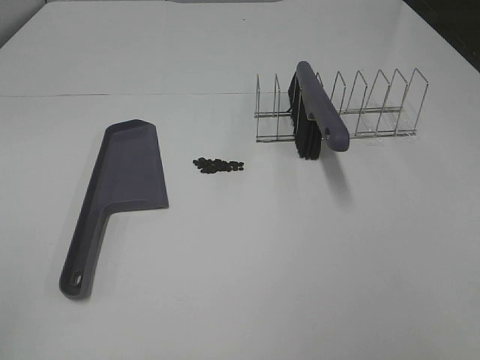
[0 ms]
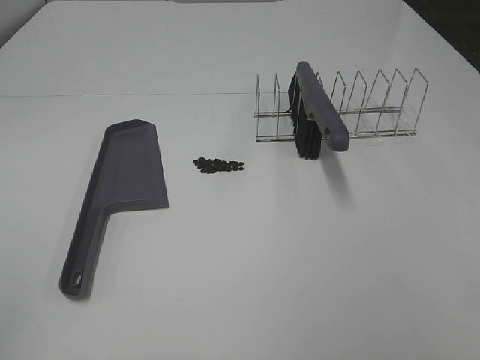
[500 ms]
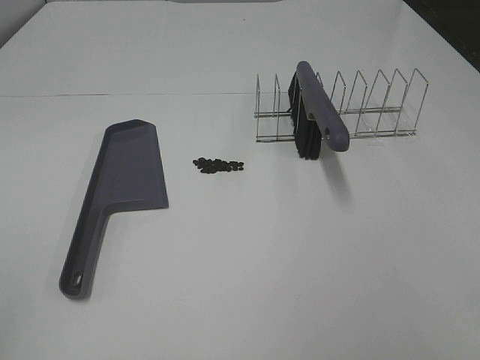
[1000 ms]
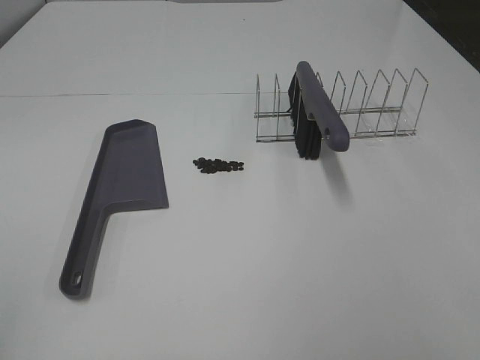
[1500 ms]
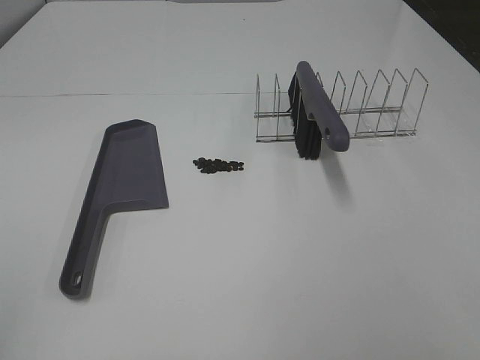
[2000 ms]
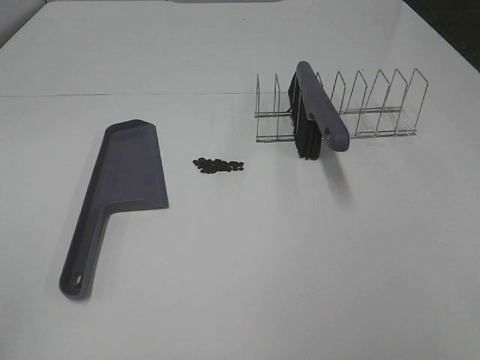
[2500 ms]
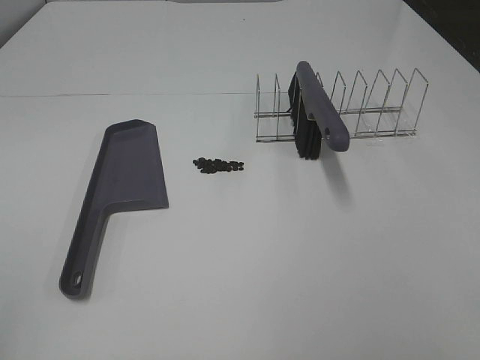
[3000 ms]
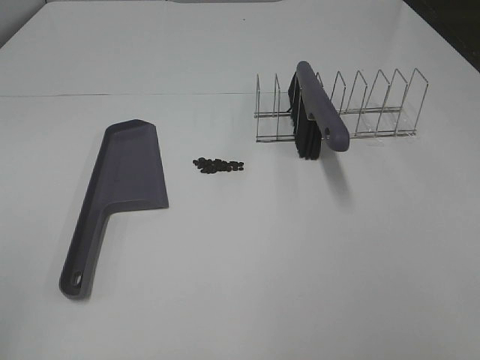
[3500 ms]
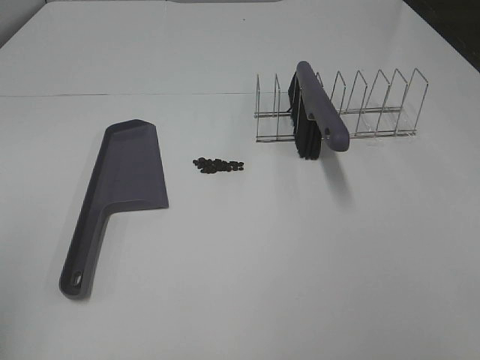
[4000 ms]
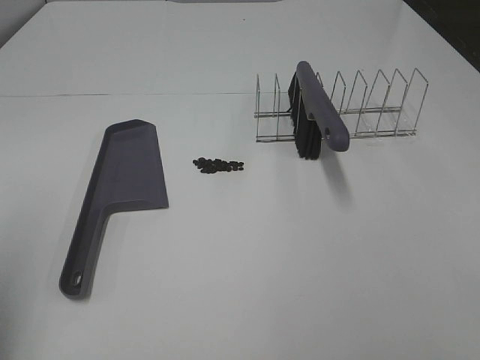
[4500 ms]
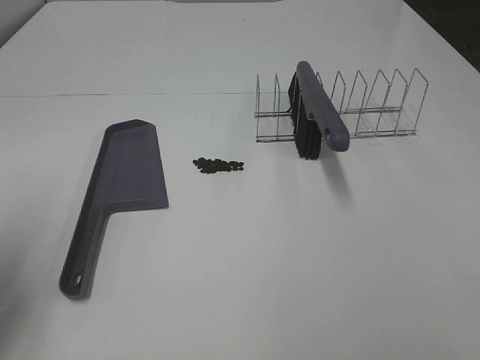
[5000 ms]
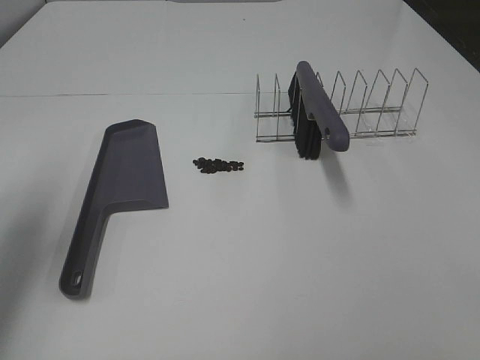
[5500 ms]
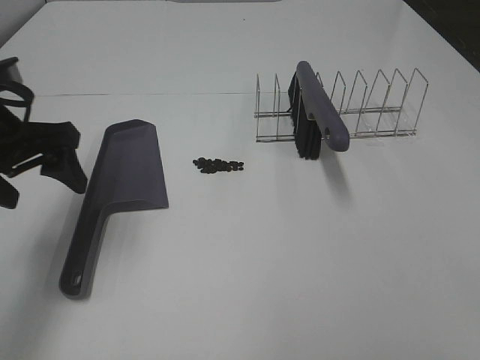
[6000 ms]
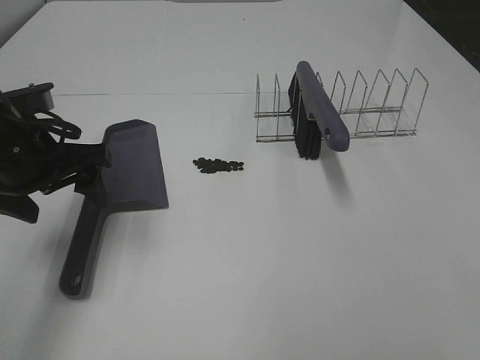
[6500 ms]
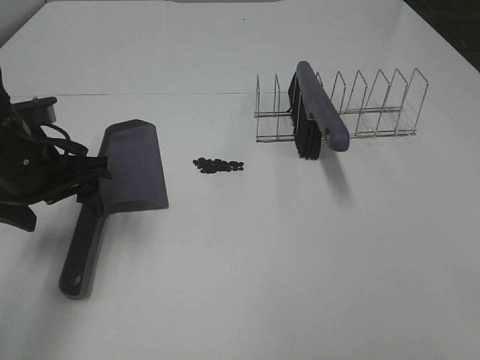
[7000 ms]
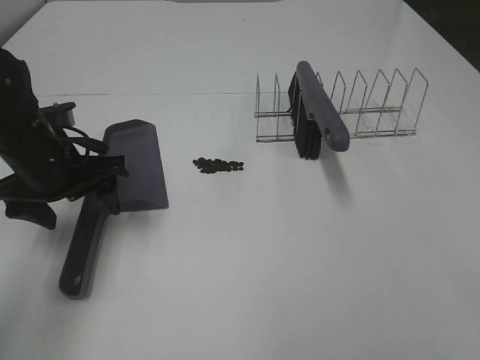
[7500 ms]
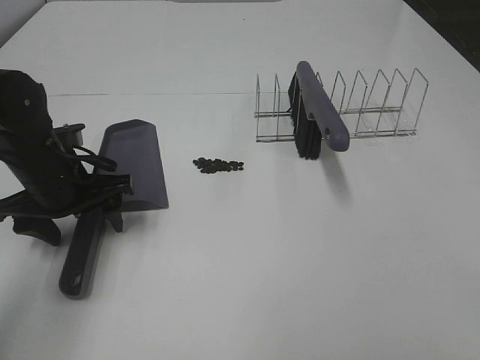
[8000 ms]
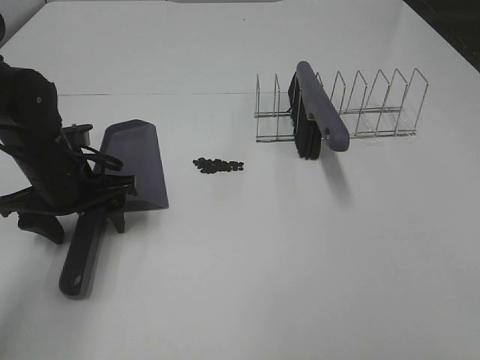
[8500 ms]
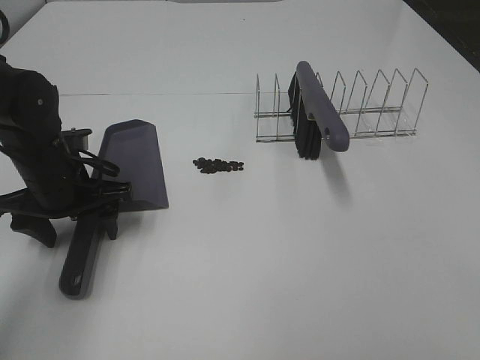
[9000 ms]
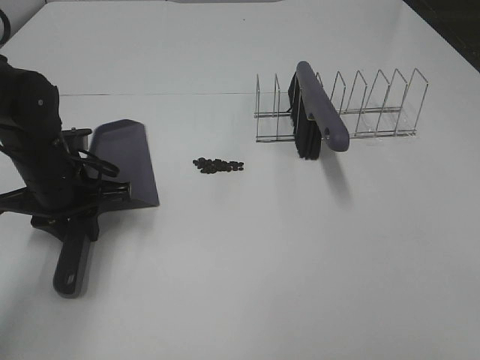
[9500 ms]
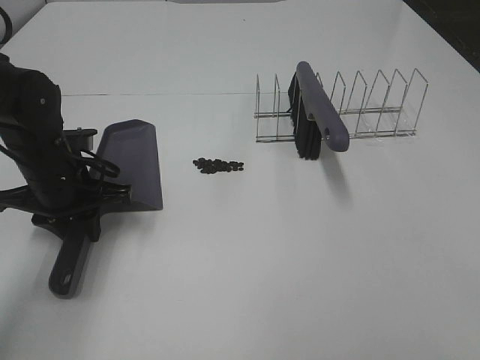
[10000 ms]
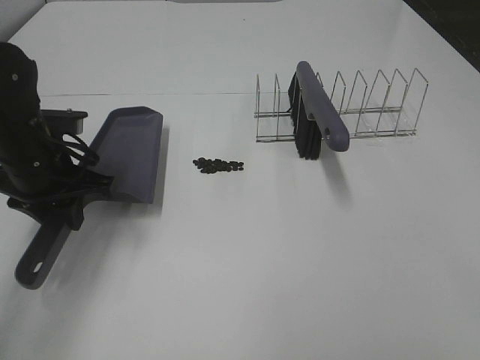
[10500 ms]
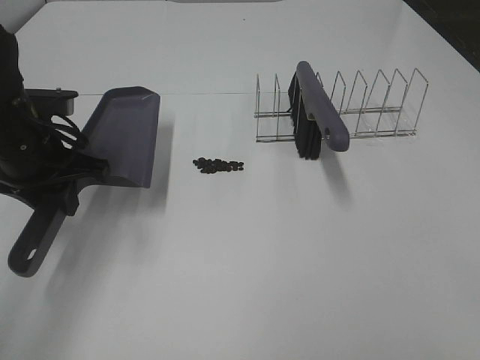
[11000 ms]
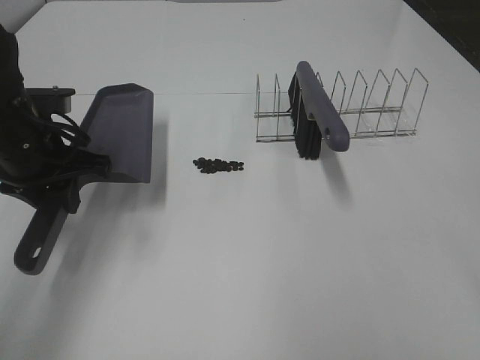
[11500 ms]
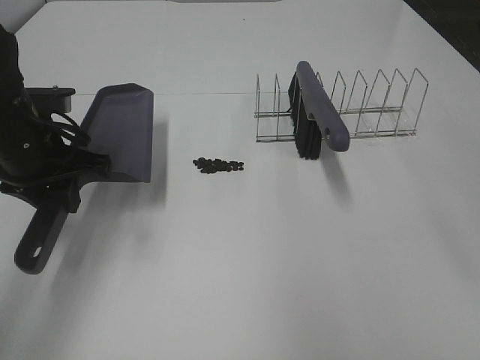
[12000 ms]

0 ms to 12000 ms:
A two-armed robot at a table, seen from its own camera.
Task of the whole recording: Sweep Coffee Bean.
Step, 0 ms to 9500 ms: Left hand: grab the dustpan.
0 ms to 2000 ms: Both grippers stay about where they are.
4000 ms to 6000 ms: The left gripper goes approximately 25 cm forward and to the right.
6000 ms to 8000 ms: The left gripper travels downward by roughly 10 cm.
8000 ms to 10000 ms: The left gripper closes its fingers.
10000 ms to 12000 ms: The left gripper moves upward, some 10 cm.

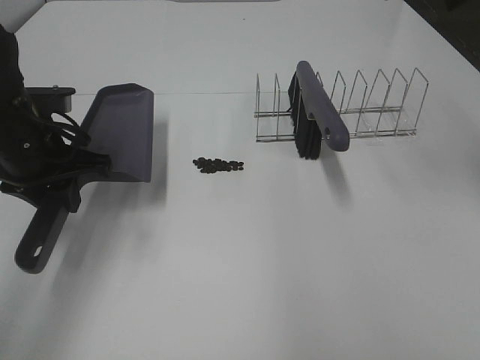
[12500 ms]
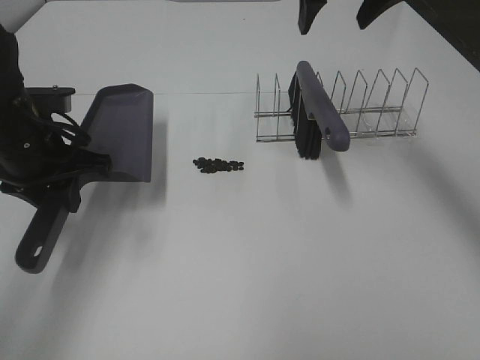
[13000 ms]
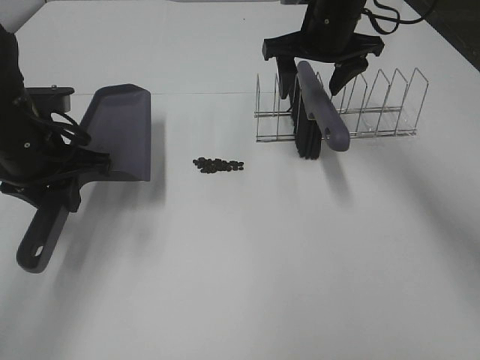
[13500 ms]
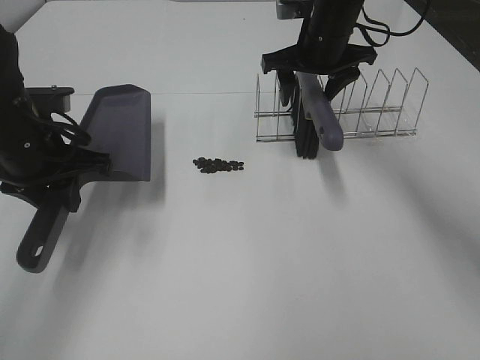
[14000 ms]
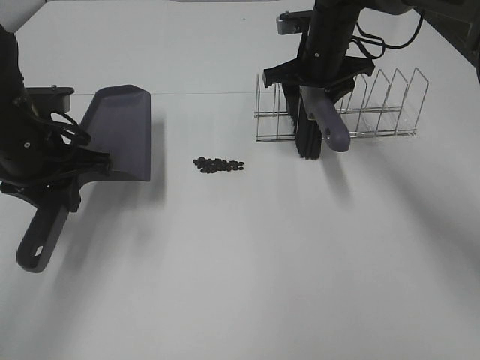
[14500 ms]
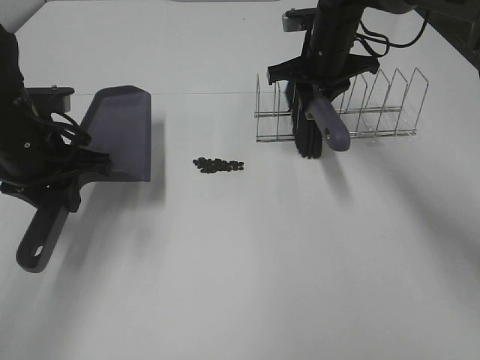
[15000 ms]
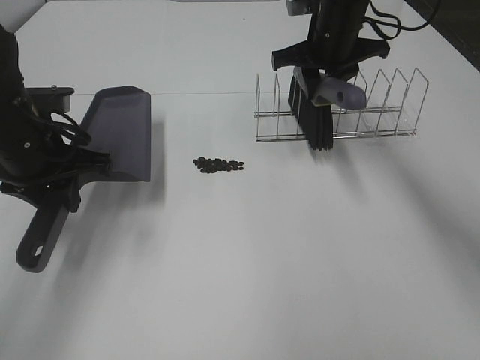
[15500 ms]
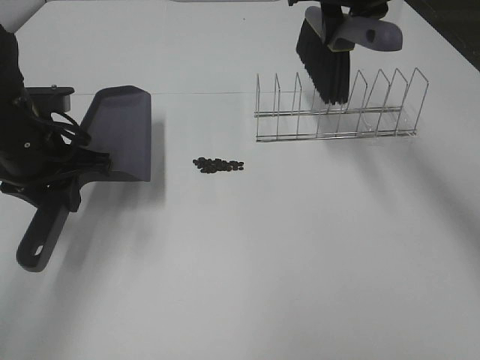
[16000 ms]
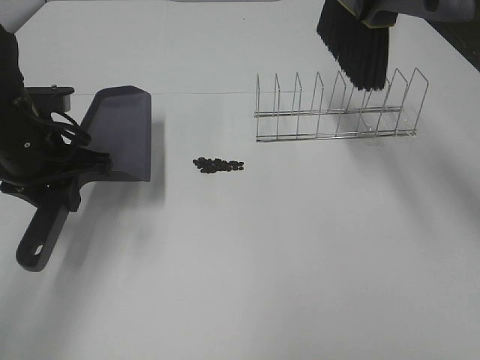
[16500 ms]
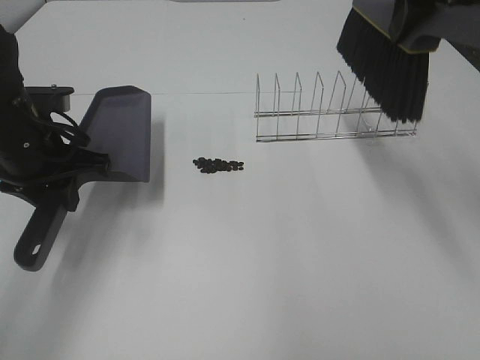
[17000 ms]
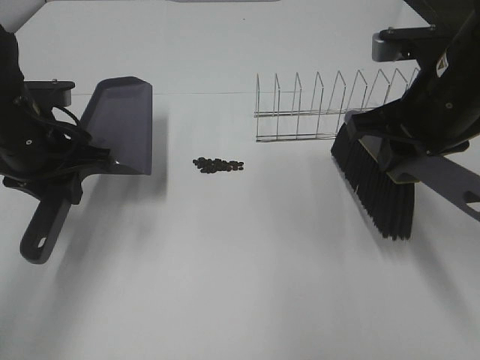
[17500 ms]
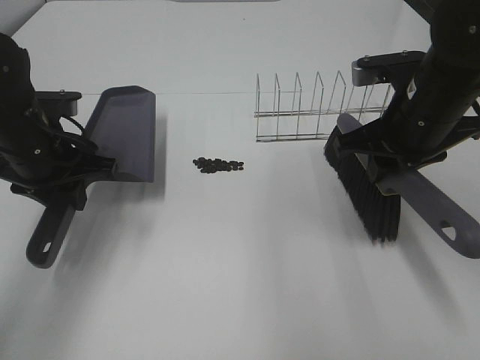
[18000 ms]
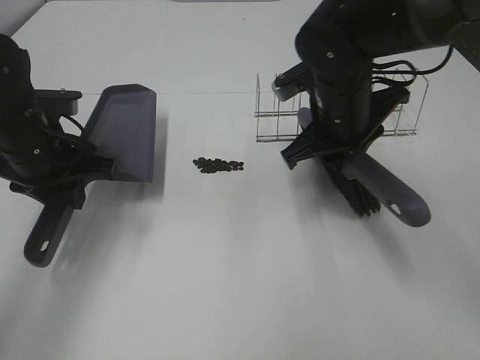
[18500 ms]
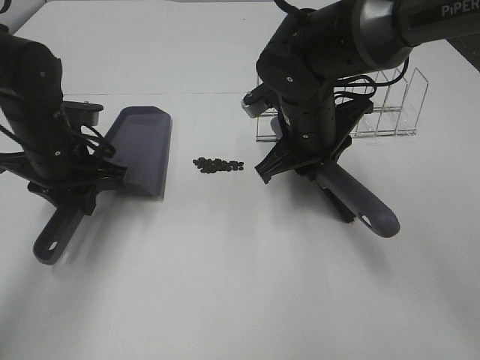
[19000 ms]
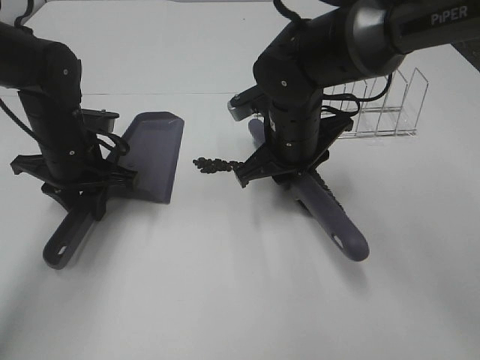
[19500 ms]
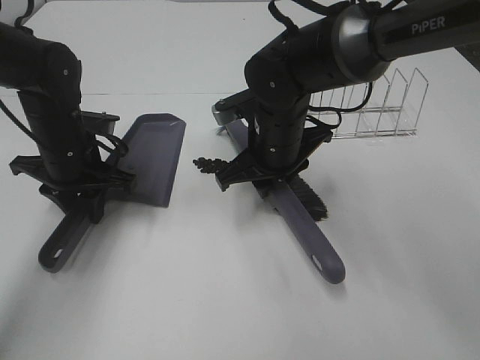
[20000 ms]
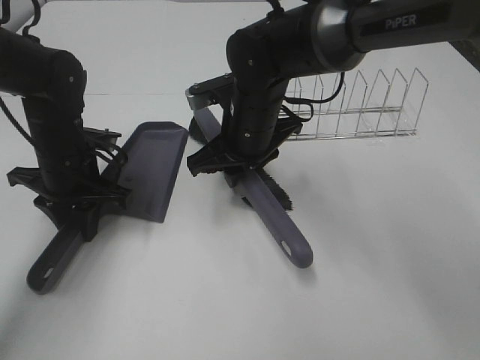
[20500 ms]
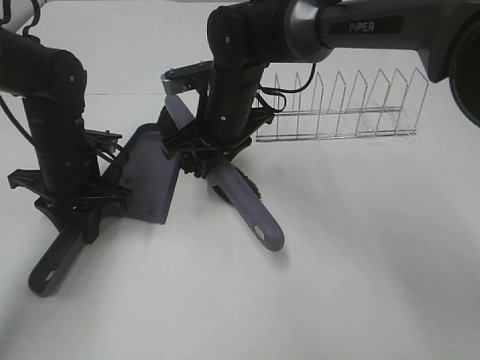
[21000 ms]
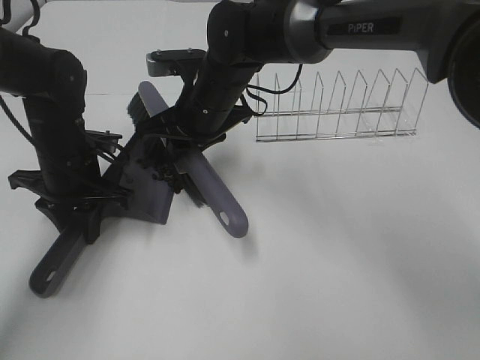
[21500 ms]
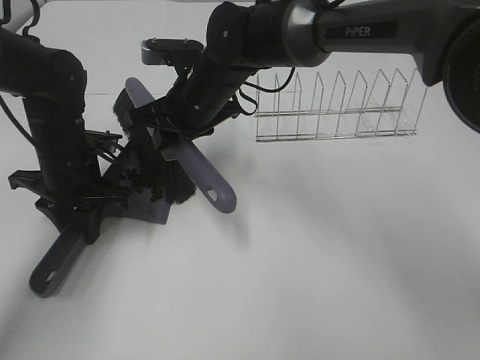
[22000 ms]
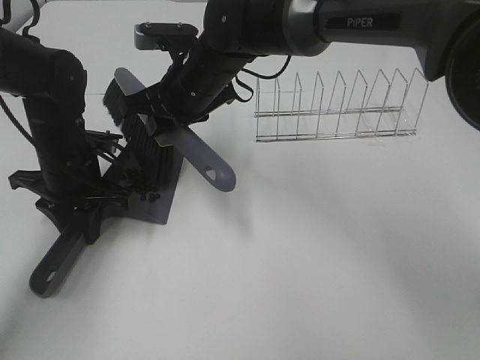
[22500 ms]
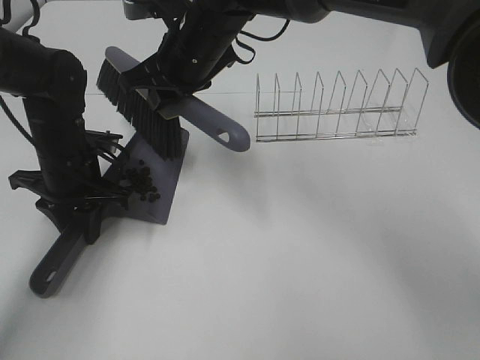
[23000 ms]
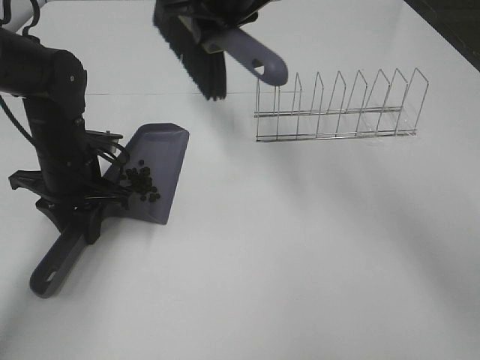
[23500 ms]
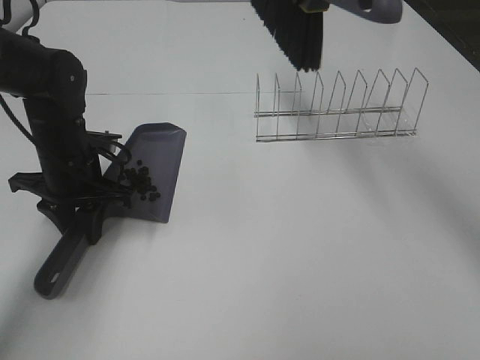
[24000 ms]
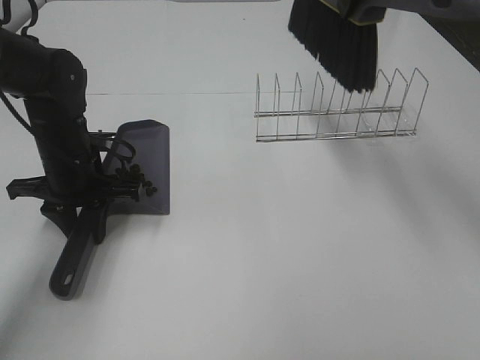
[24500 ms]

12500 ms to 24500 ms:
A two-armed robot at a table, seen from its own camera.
Task of the whole recording: Sweep Coffee Bean.
Step, 12500 ms to 14500 ms: Right hand:grab the broom.
Step, 15000 ms to 22500 ms: Right hand:sweep the coffee beans into the dustpan.
12500 ms to 14500 ms: The right gripper goes approximately 25 cm downward, forward and to the left, and closes its fingers.
14500 ms to 16500 ms: The right gripper is displaced upward and backward by some 20 cm, and closes.
16500 ms to 18500 ms: The right gripper travels downward by approximately 20 cm.
18500 ms to 20500 ms: The right gripper is displaced to the left by roughly 10 cm. Meanwhile the left gripper shifts some 5 cm downward.
20500 ms to 22500 ms: The right gripper is displaced to the left by approximately 5 cm.
22500 ms to 24500 ms: The right gripper goes about 25 cm upward and to the right.

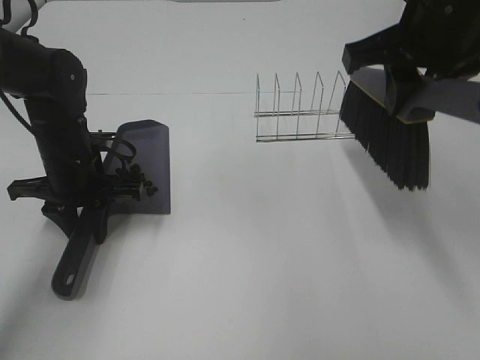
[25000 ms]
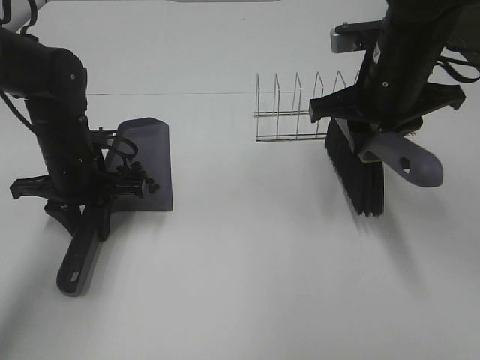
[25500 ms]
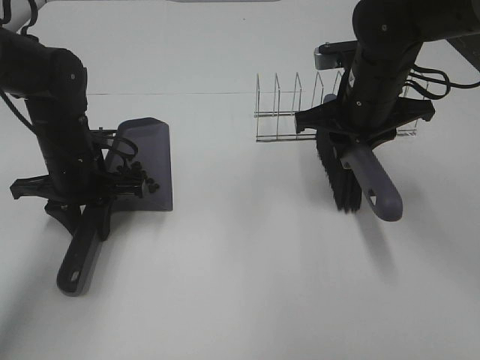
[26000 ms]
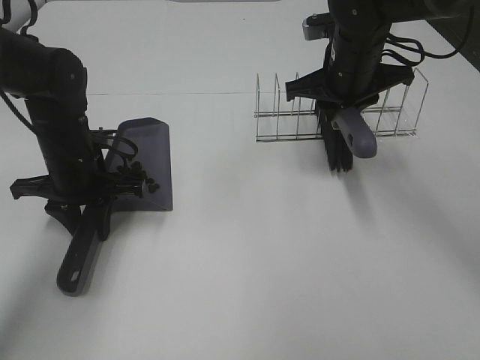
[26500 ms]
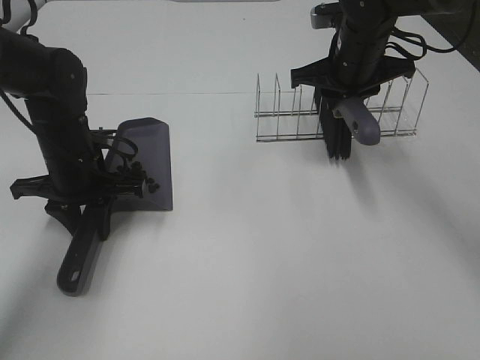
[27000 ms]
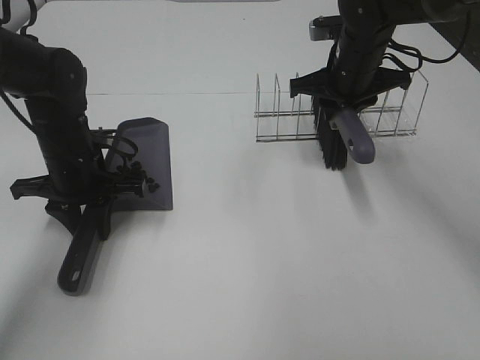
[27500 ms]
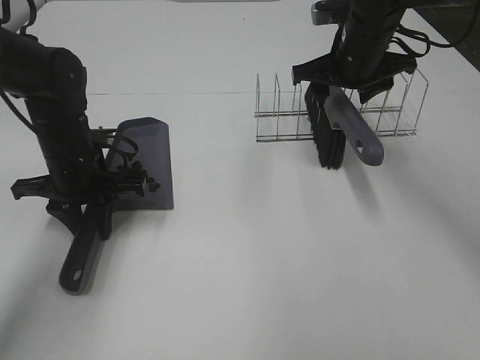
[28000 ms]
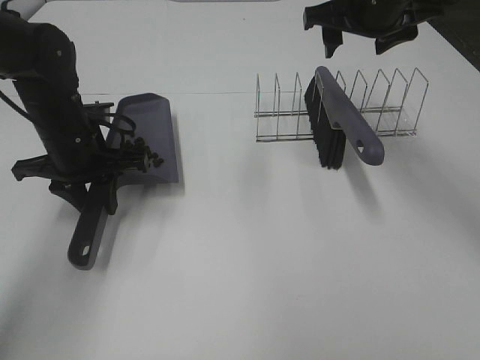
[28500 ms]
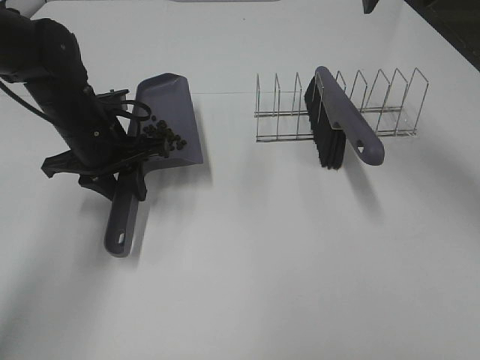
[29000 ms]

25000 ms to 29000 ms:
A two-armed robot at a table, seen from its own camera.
Task of the whole recording: Sweep Coffee Bean.
Step, 25000 ms to 28000 ms: Right hand:place the broom on the rack.
25000 ms to 27000 ms: The right gripper travels forward and downward by some 15 cm.
27000 ms to 29000 ms: The right gripper heads upward, covering approximately 15 cm, and opens up.
